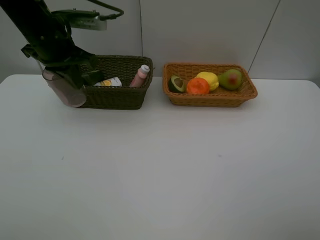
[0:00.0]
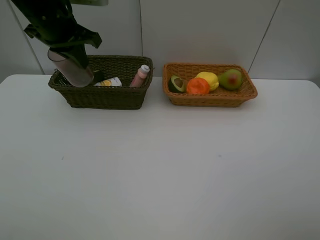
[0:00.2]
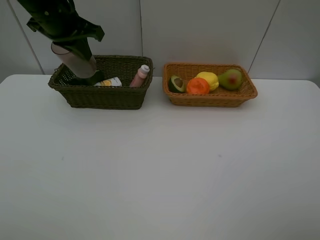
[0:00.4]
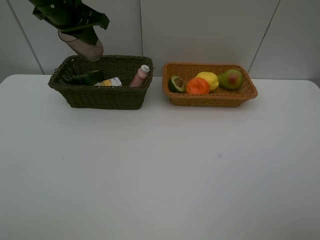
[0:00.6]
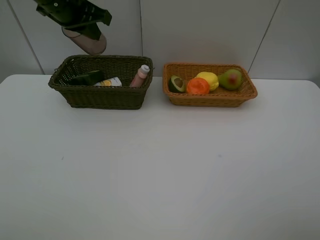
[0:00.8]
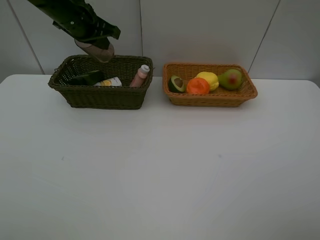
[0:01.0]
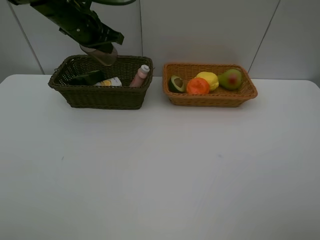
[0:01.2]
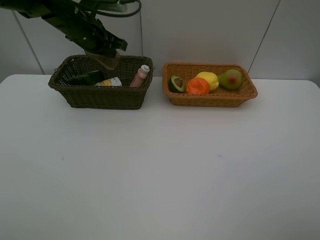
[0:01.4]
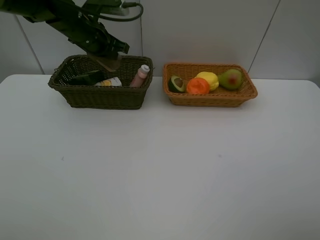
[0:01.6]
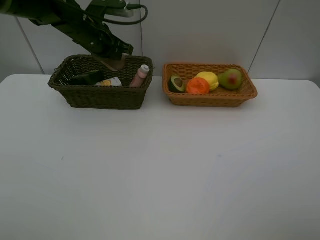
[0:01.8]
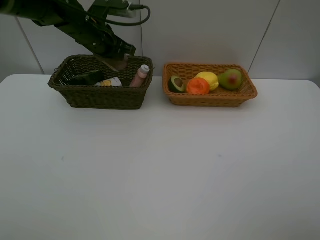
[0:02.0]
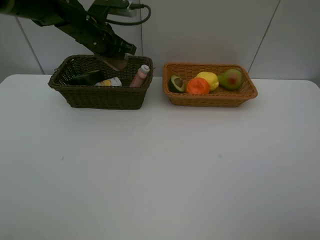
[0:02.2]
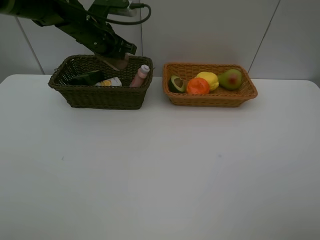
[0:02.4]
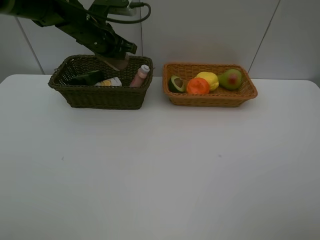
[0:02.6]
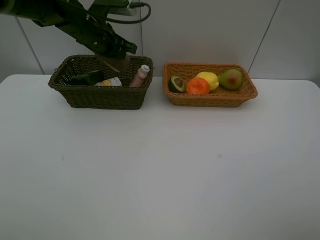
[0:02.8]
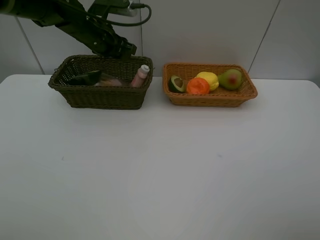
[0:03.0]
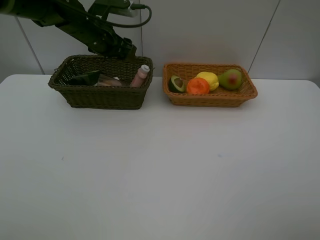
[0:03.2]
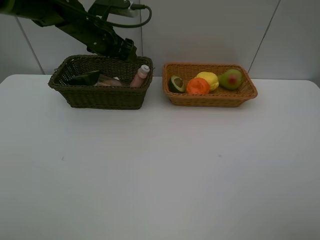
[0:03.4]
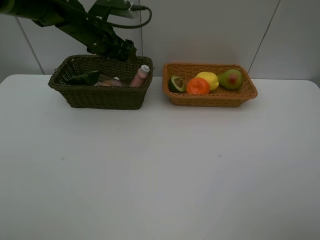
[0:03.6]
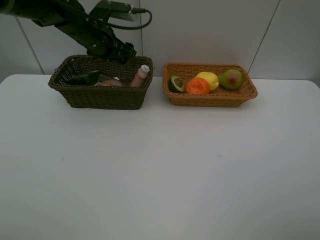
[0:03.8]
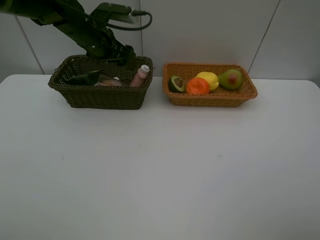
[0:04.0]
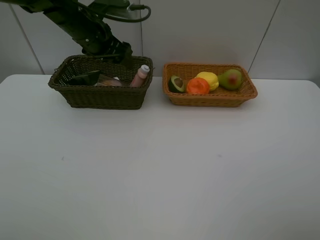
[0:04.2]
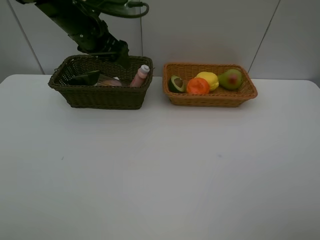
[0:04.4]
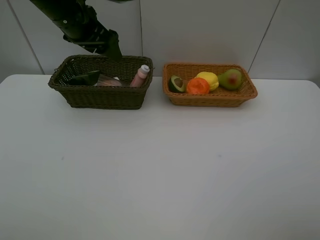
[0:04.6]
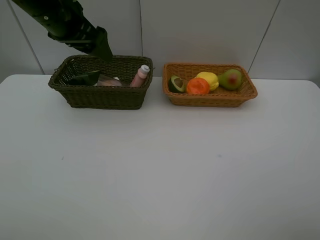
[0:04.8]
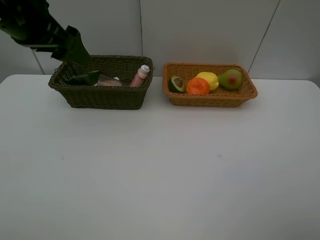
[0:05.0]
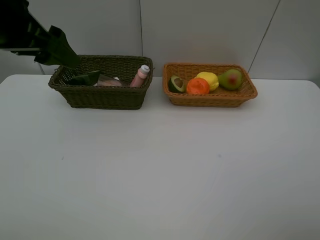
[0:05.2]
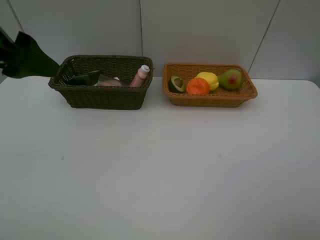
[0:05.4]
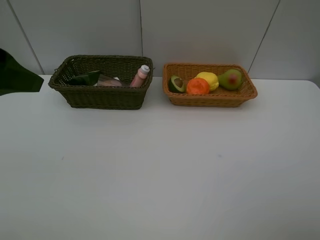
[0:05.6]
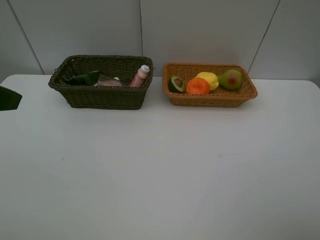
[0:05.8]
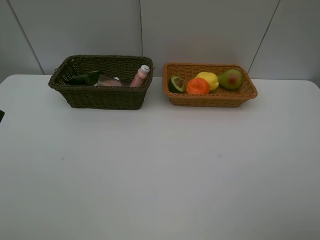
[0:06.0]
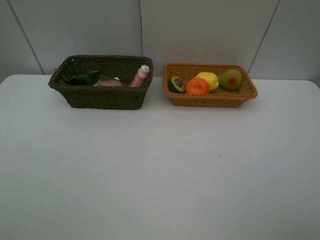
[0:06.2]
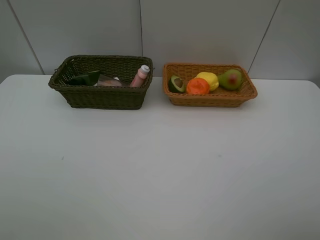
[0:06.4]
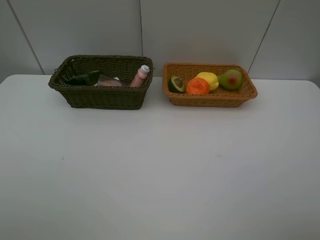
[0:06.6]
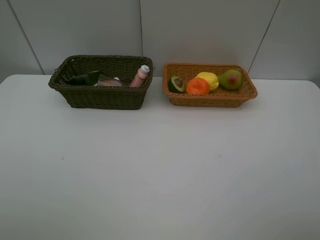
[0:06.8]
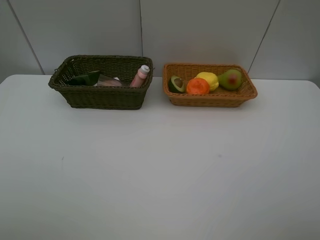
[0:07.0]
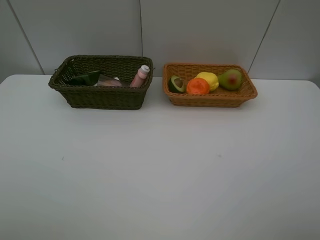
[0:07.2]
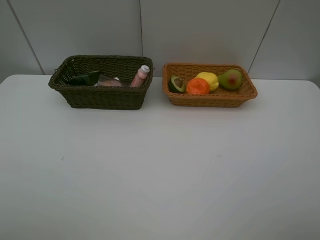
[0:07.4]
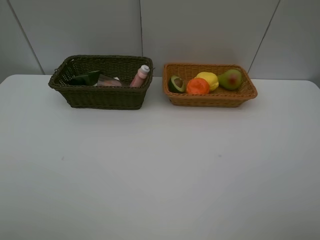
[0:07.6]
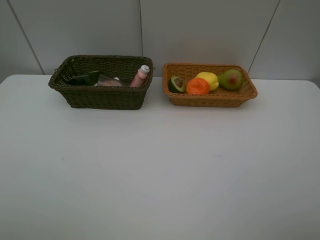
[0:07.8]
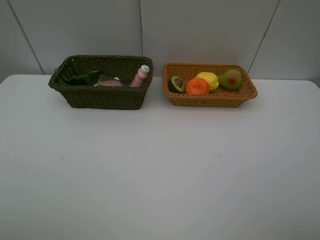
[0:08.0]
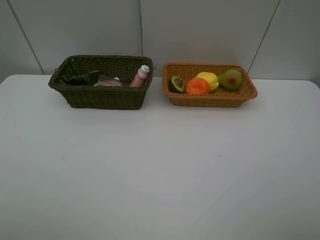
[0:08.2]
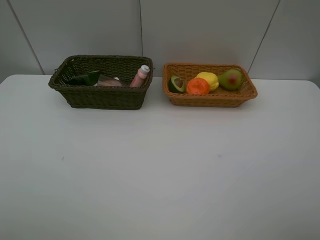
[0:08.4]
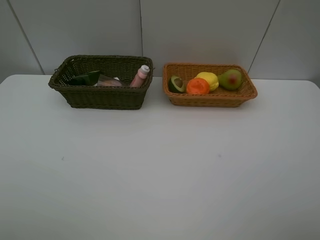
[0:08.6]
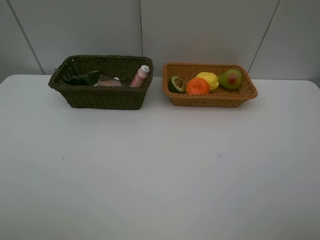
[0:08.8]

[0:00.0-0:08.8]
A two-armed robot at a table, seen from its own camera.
Task of the whole recording: Place multiple objects separately in different baskets.
Step, 0:00.0 to 0:03.2: Place the red cup in the dark basket with left gripper.
0:00.0 to 0:01.4: The left gripper heads forward, covering roughly 10 cm.
0:01.4 to 0:03.0: The left gripper opens up.
0:03.0 to 0:04.4: The left gripper moves about 5 cm.
0:04.4 to 0:05.8: The left gripper shifts some 25 cm backward.
0:07.4 to 0:08.8: Neither gripper changes place.
